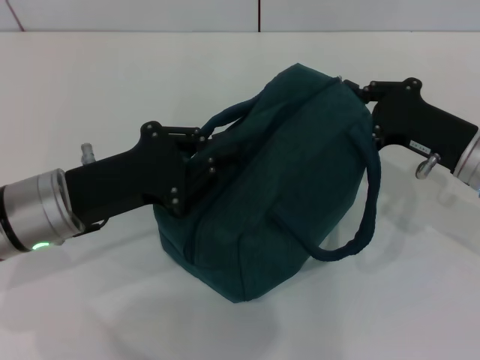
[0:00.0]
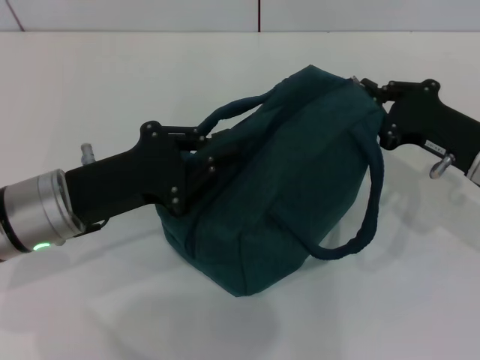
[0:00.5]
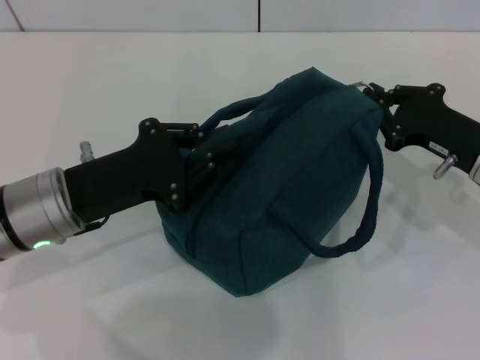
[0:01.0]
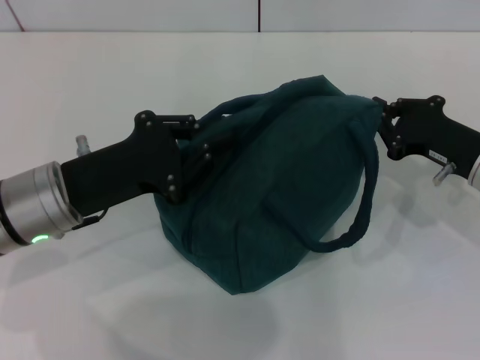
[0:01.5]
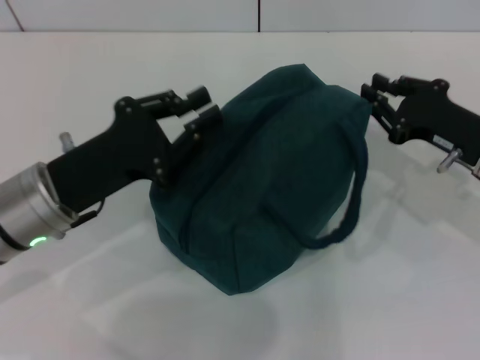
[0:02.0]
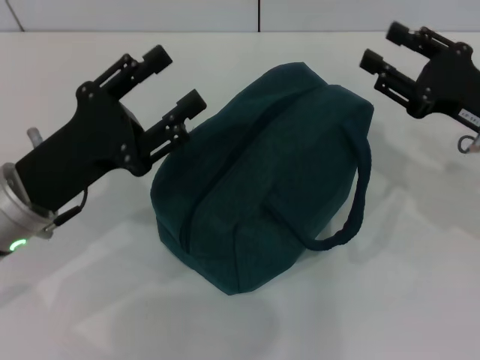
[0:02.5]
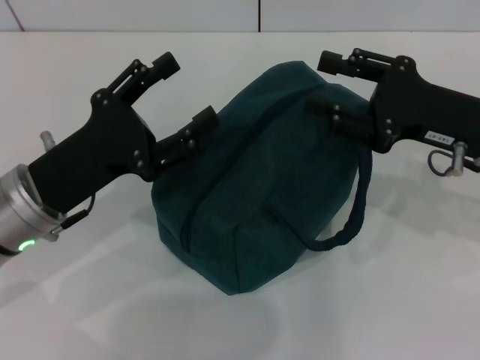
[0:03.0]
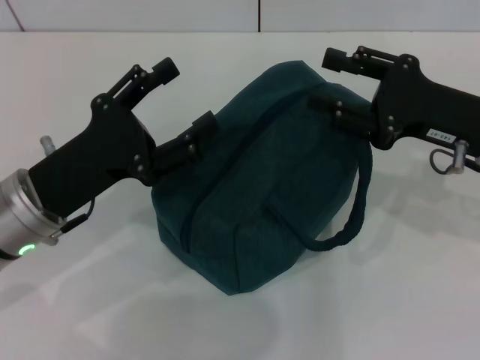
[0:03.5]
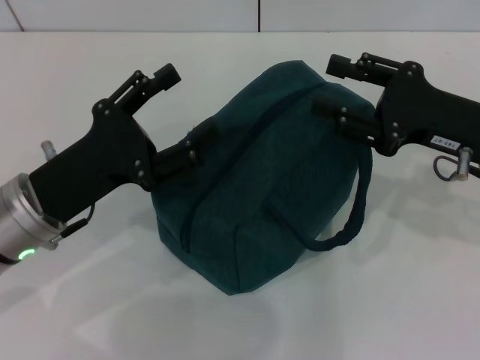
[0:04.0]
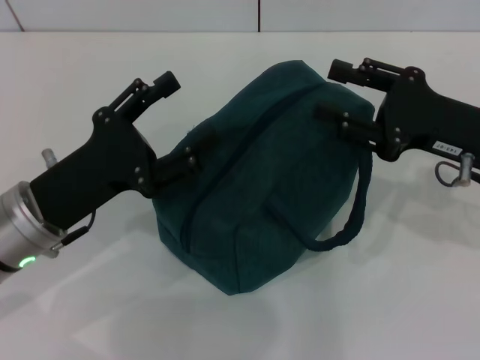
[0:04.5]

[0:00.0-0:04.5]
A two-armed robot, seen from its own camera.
0:00.0 to 0:02.0: There are only small adjustments of the grippers.
0:02.0 to 0:04.5: The right gripper travels upward by some 5 cm, and opens. The left gripper opens up.
